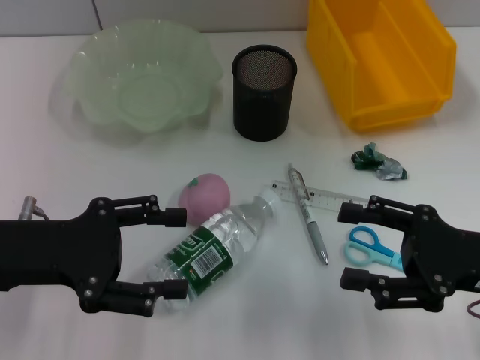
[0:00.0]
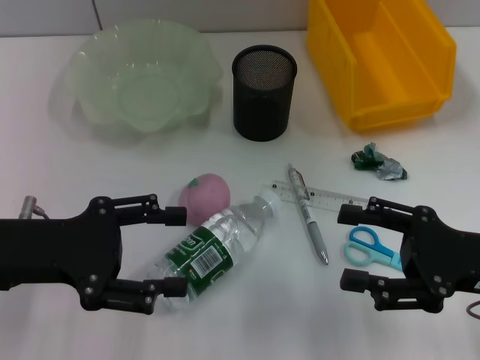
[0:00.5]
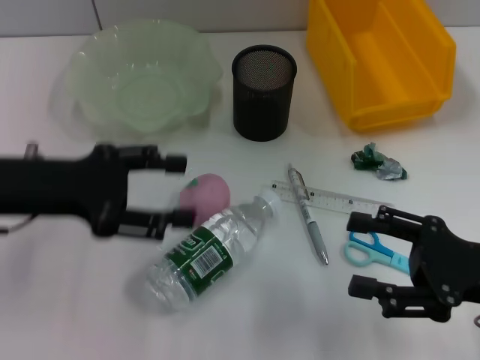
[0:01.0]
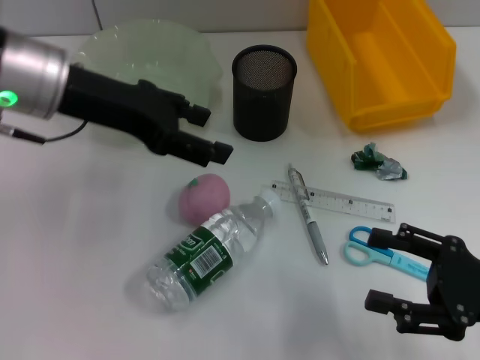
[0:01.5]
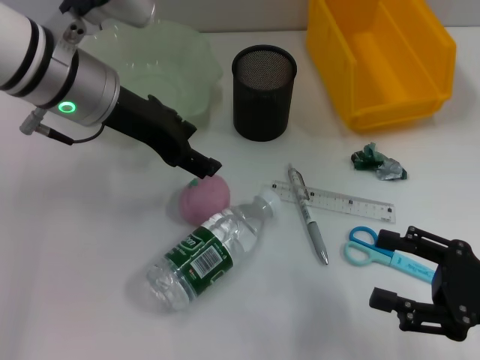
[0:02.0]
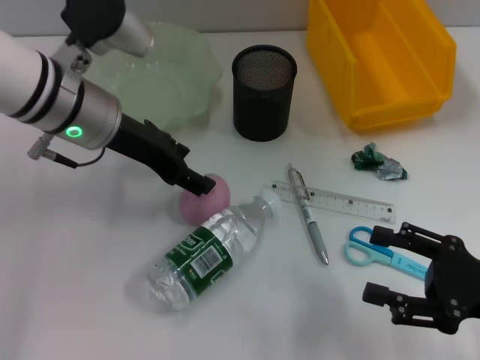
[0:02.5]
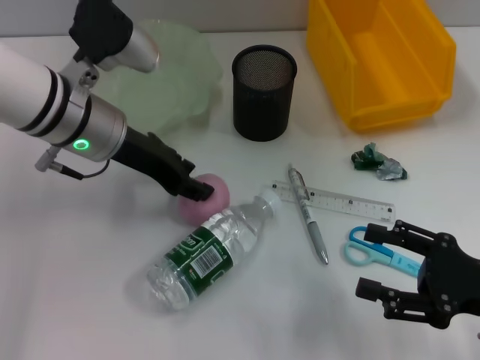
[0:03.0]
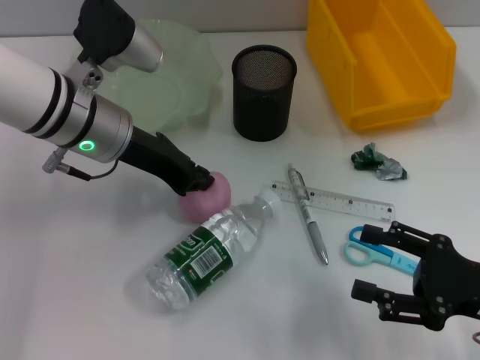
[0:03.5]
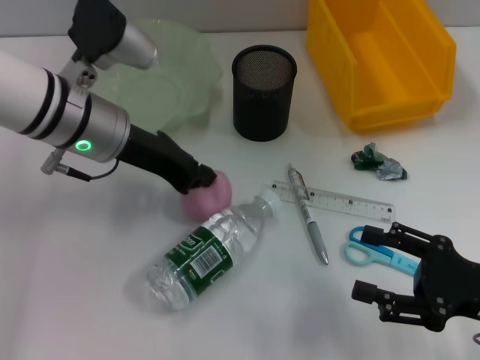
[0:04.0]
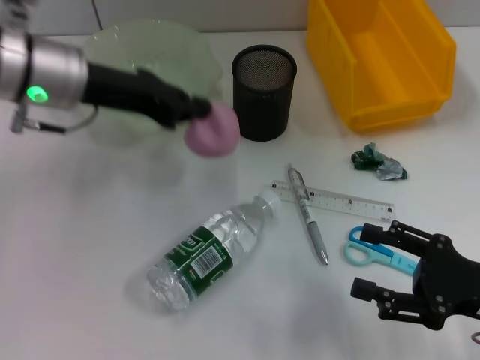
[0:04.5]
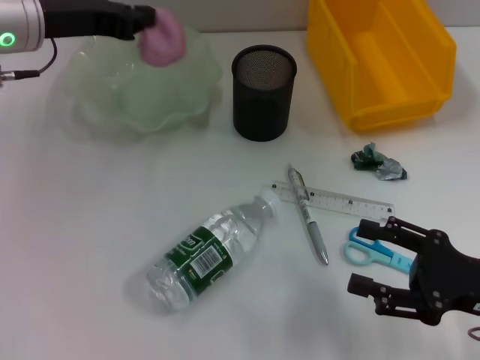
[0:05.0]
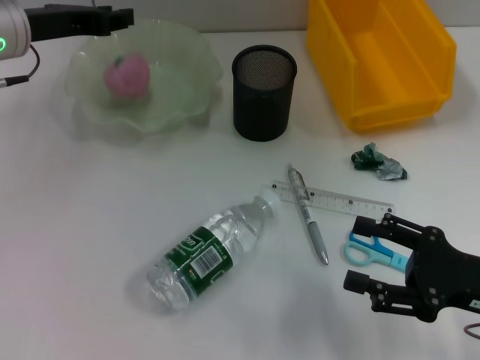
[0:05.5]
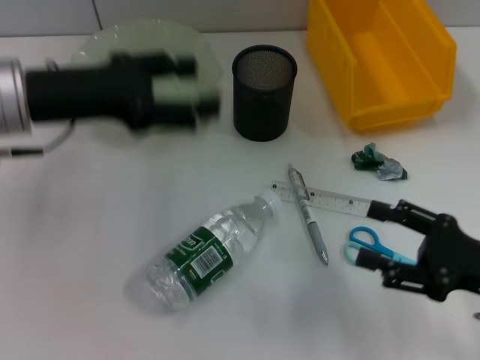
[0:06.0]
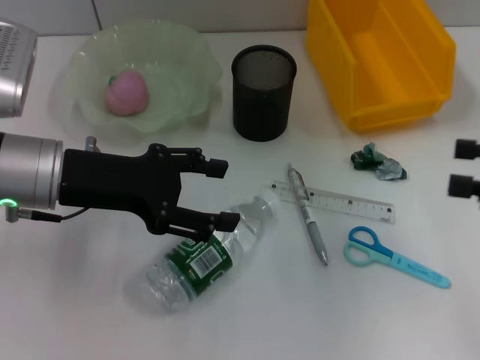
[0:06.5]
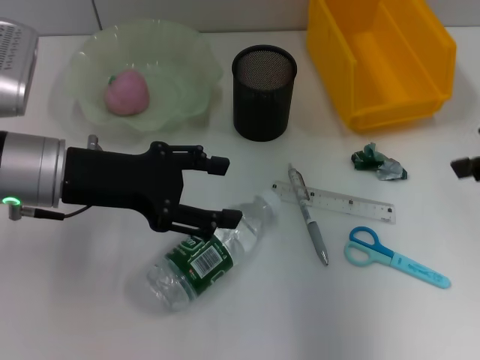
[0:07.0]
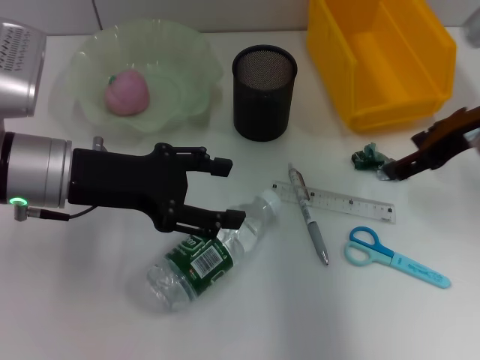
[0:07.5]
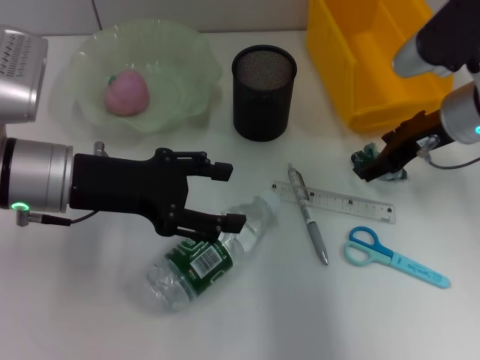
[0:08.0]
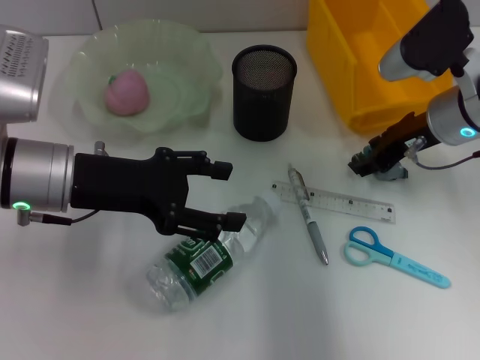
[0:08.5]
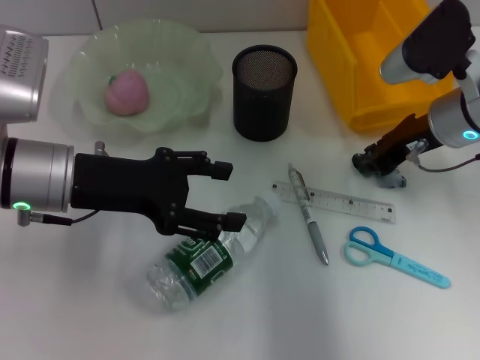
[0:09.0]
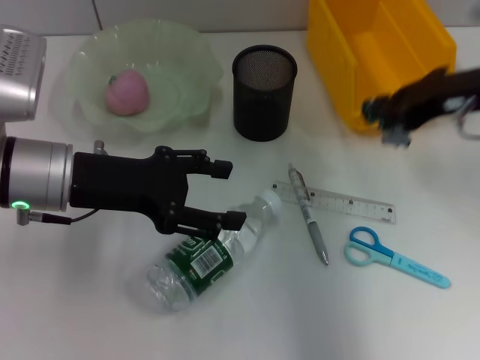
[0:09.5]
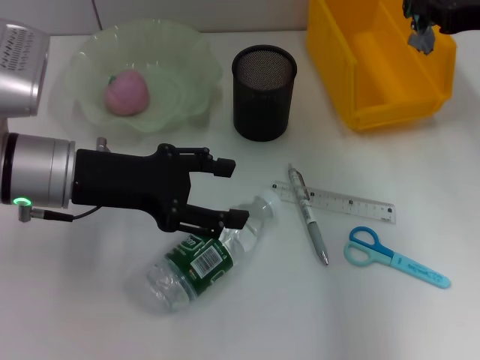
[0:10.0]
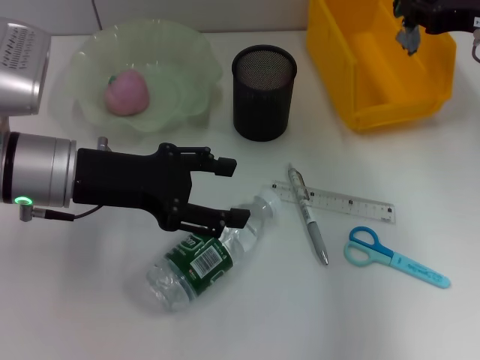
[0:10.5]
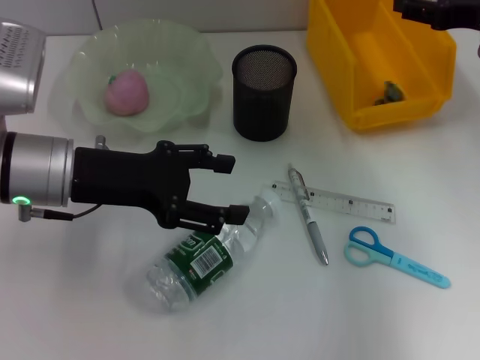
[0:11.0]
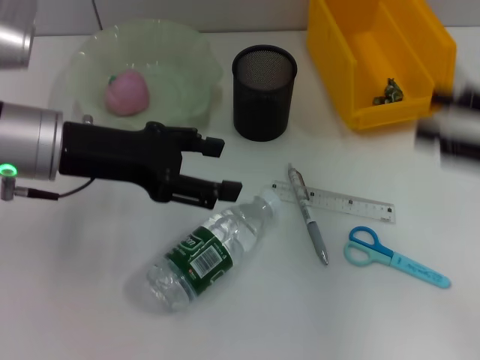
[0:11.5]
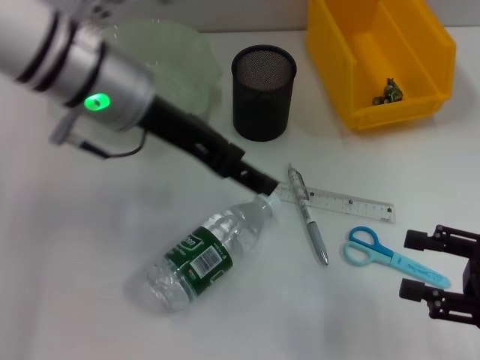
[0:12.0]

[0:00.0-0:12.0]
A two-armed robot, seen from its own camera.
Step, 0:00.0 to 0:03.0: Grab the peach with the left hand.
Step, 0:03.5 to 0:06.0: Place the peach into the fruit bowl with the left hand.
Step, 0:06.5 to 0:08.5: Grab the plastic with the right hand.
Step, 0:09.0 to 0:11.0: Place the plastic into the trash can with the right hand.
0:00.0 to 0:02.0: The left gripper heads forward, to the right and upward, covering some 20 cm; the right gripper moves about 5 cm.
0:02.0 to 0:04.0: The left gripper closes up.
0:04.0 to 0:06.0: The left gripper goes some 5 cm to the left, and opens up.
0:06.0 to 0:08.0: The left gripper ends up about 5 cm from where it was, while the right gripper travels forward and upward by roughly 20 cm.
0:08.0 to 0:10.0: The right gripper heads upward and to the right, covering some 10 cm, and closes up.
0:10.0 to 0:12.0: The left gripper travels upward and to the right by roughly 10 cm. The right gripper is displaced backward and downward by about 20 cm, and opens.

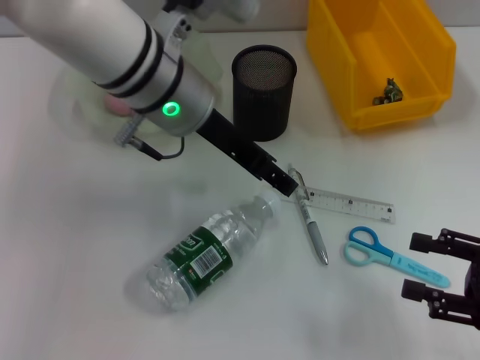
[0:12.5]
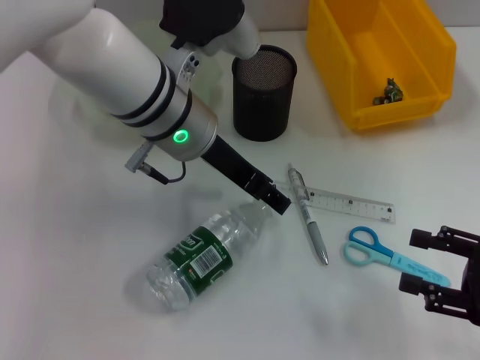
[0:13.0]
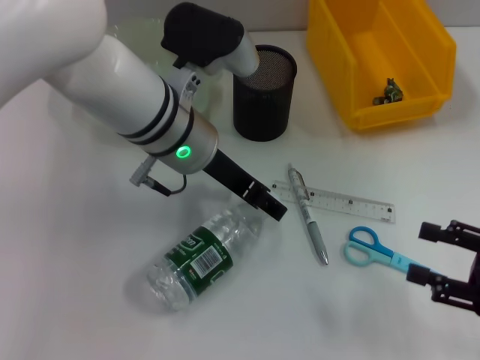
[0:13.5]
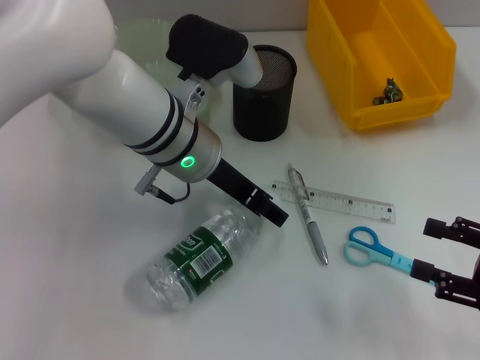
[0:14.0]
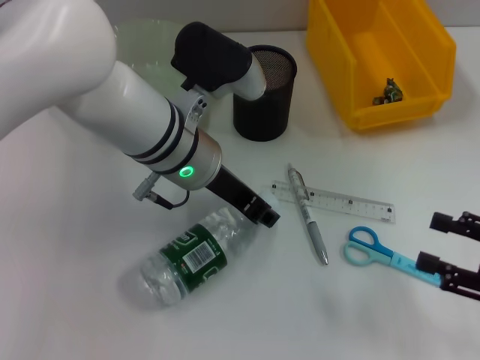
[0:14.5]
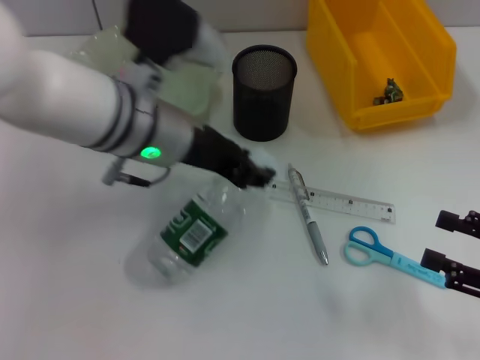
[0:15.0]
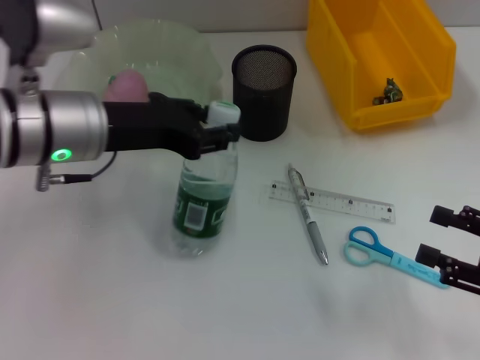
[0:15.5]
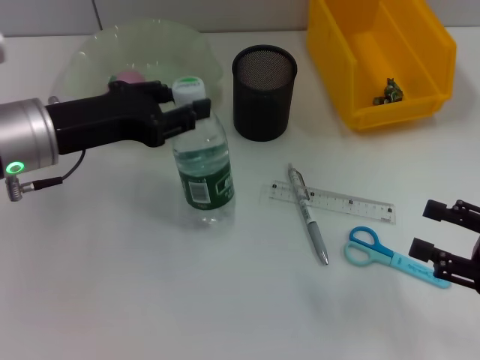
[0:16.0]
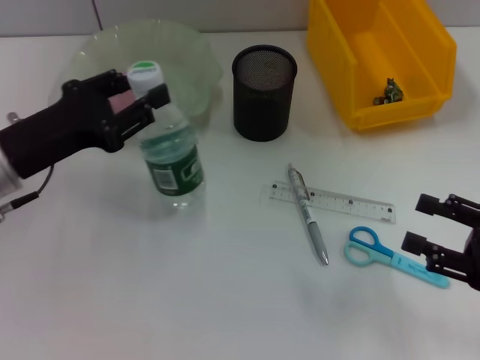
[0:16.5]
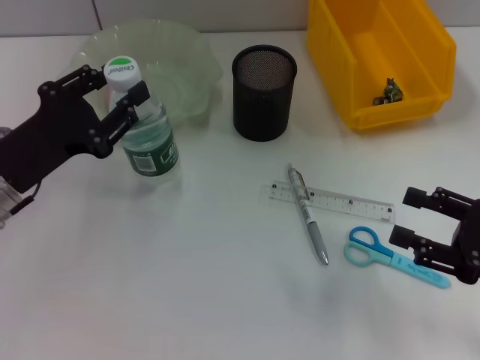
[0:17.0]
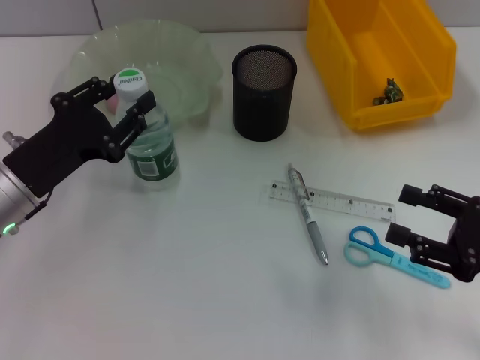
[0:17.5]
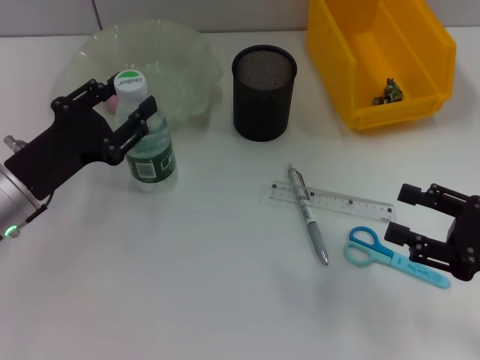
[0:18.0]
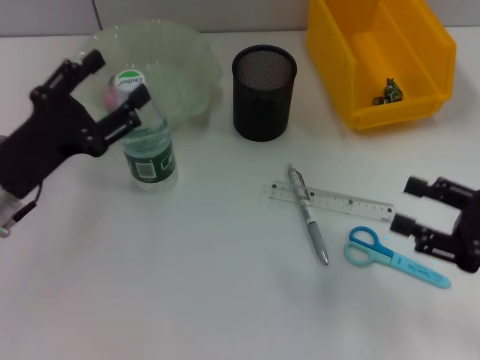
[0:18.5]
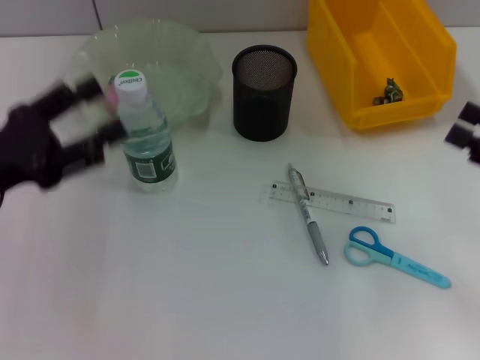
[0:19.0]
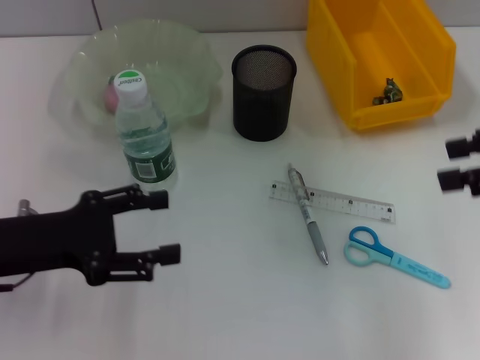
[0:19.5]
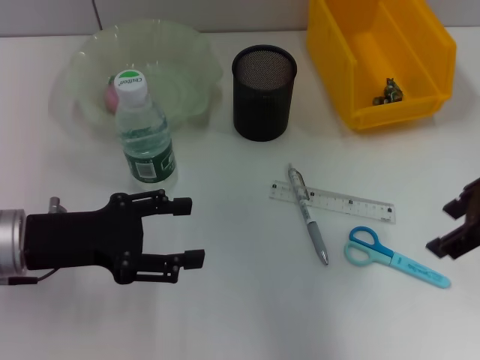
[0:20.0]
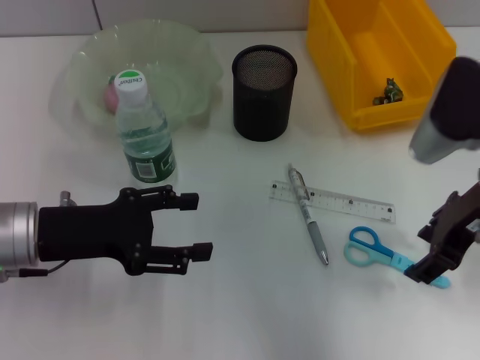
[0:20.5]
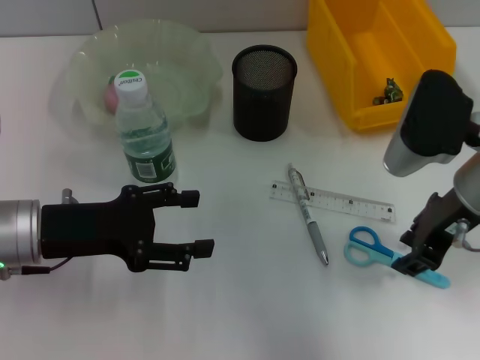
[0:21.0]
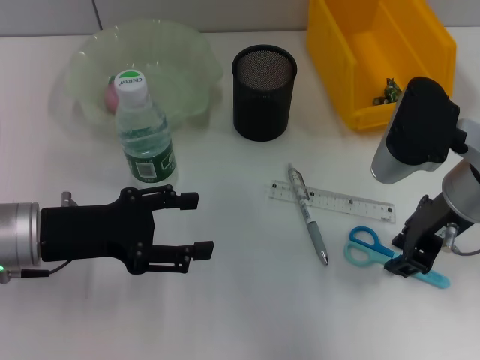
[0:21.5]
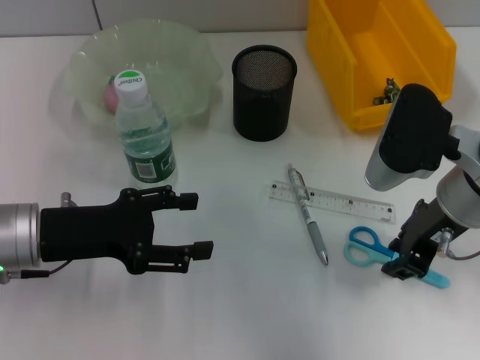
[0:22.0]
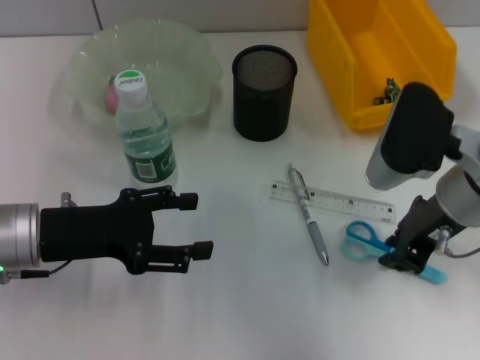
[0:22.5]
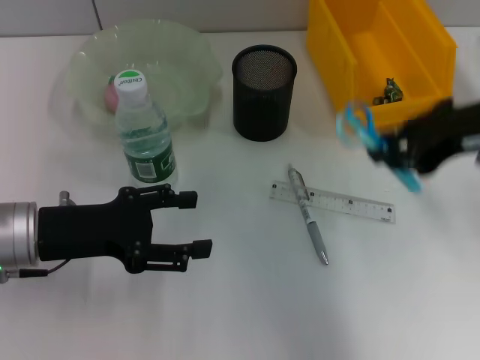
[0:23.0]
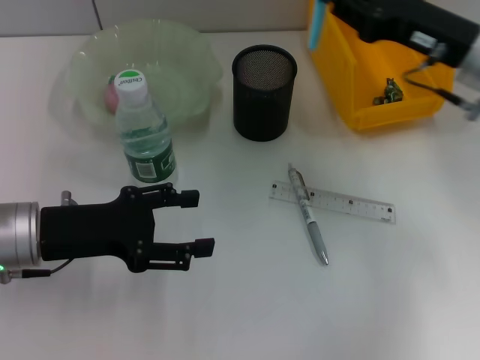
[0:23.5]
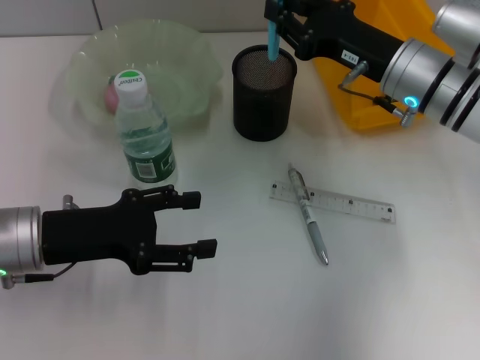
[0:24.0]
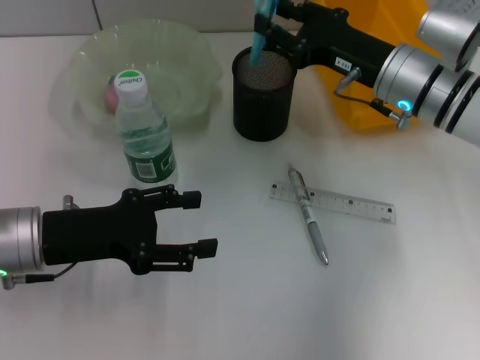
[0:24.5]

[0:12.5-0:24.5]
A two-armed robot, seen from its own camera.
Step, 0:12.5 to 0:14.5: Grab the water bottle with the left hand.
Step, 0:15.0 to 0:18.5: Place the water bottle on the table with the left hand.
Step, 0:19.0 to 0:22.0: Grab the blue scissors with the right hand.
0:12.5 to 0:14.5: The left gripper travels downward by approximately 5 cm.
0:14.5 to 0:16.5: The left gripper shifts approximately 20 cm to the left.
0:16.5 to 0:18.5: The left gripper opens its fingers.
0:18.5 to 0:20.5: The right gripper heads to the left, forward and upward, covering some 15 cm.
0:20.5 to 0:22.5: The right gripper closes its fingers.
0:22.5 to 0:24.5: The right gripper travels forward by about 10 cm, and goes upward and returns, some 10 cm each way.

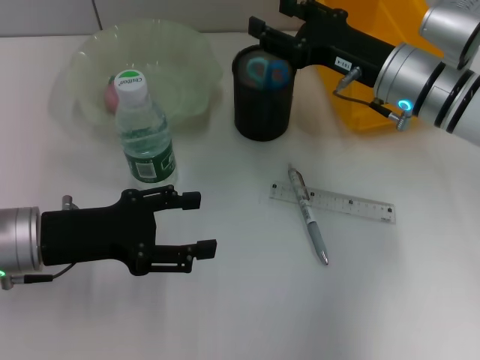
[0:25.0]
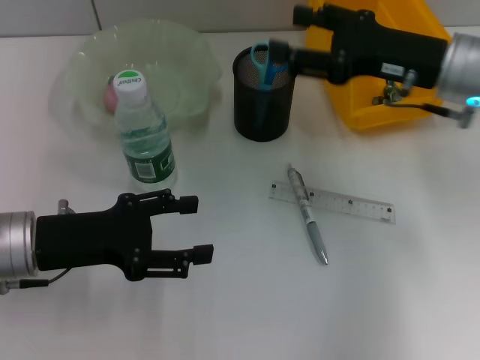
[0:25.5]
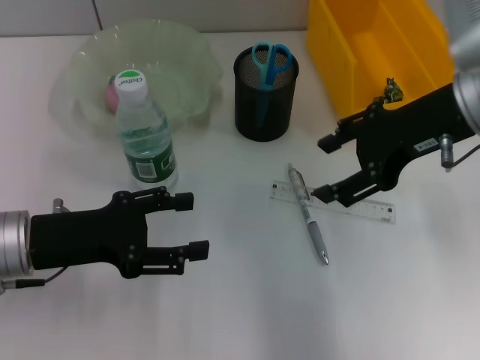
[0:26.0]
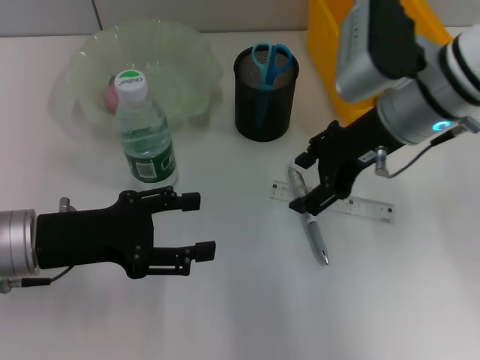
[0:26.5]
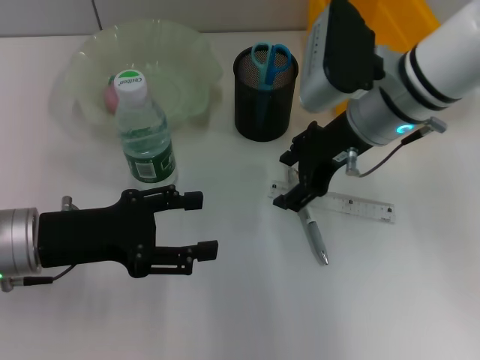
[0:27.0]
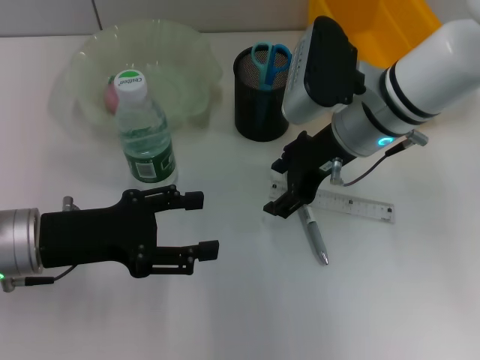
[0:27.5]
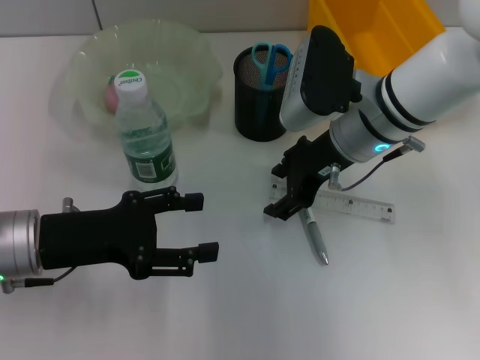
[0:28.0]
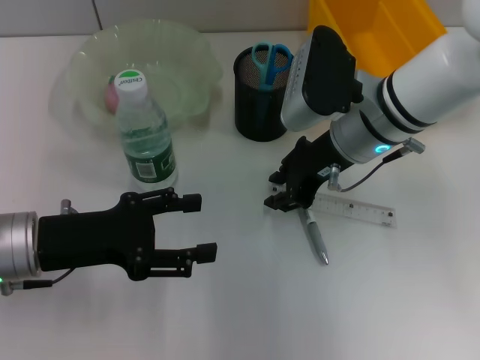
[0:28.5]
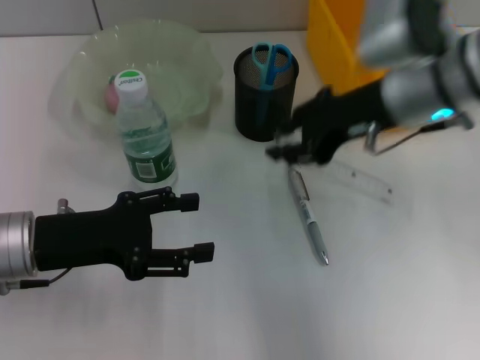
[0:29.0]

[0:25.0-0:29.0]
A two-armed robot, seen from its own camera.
Step, 0:25.5 to 0:28.5: Grab the ruler with the right hand.
0:27.0 to 0:29.0: The right gripper closes up.
